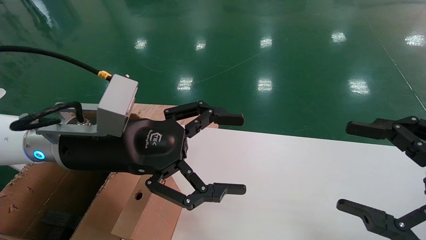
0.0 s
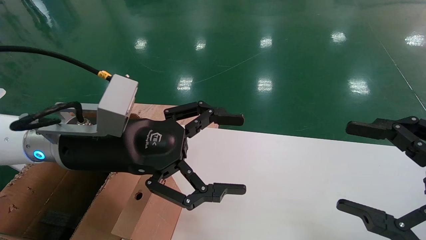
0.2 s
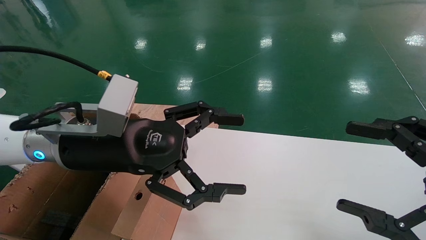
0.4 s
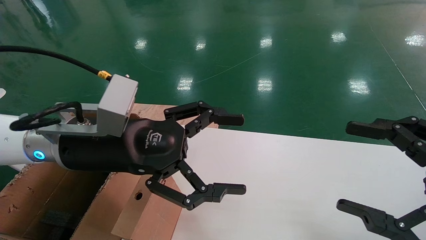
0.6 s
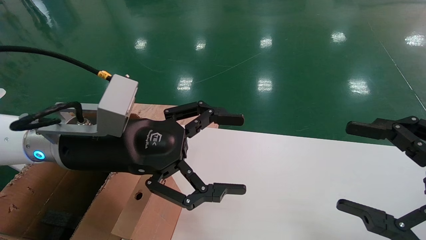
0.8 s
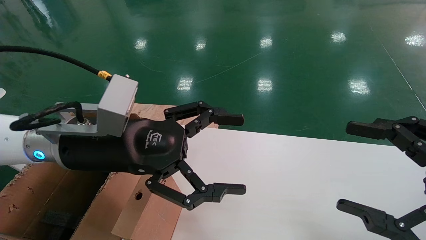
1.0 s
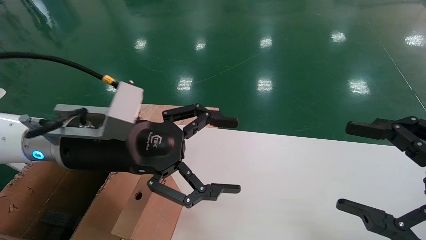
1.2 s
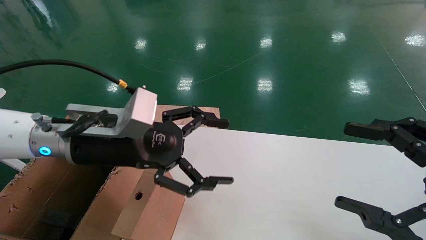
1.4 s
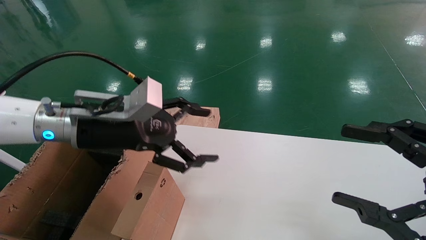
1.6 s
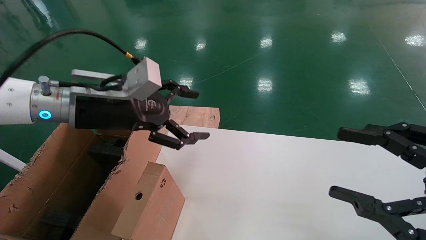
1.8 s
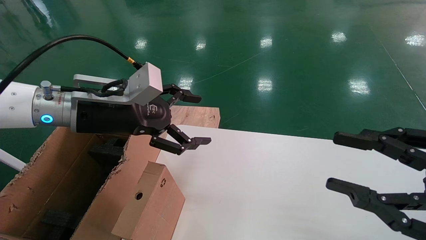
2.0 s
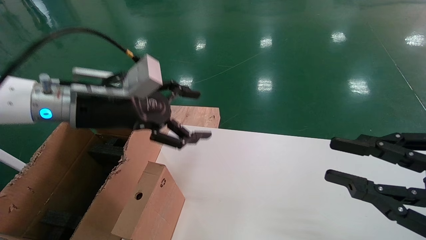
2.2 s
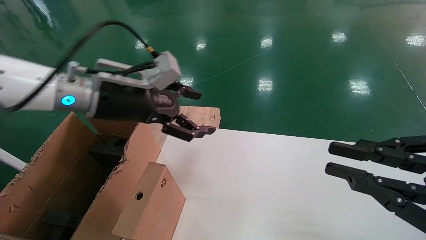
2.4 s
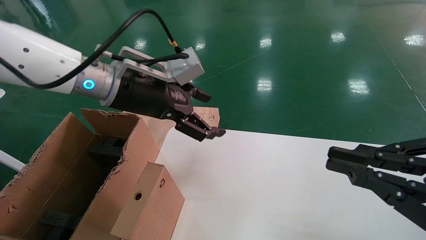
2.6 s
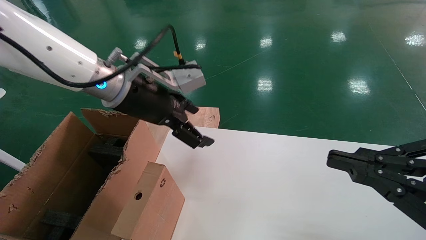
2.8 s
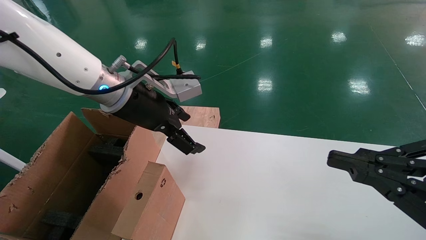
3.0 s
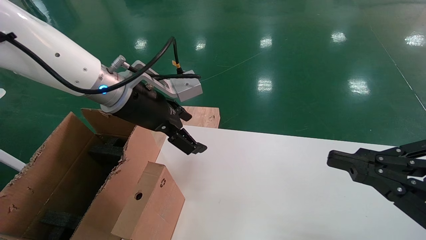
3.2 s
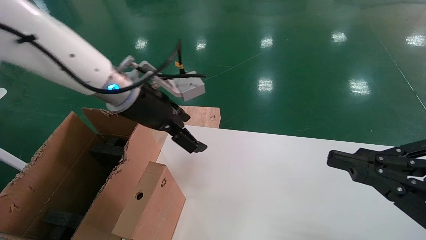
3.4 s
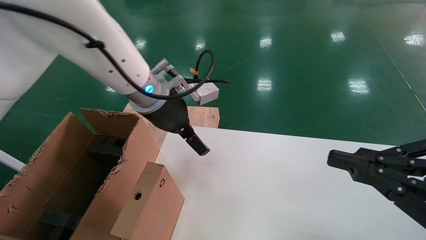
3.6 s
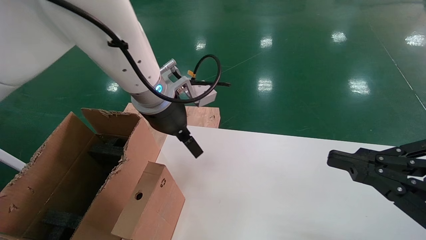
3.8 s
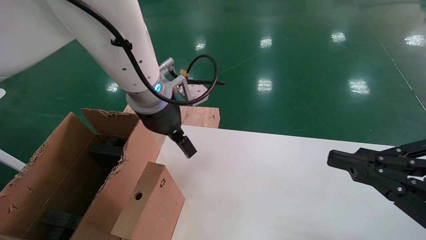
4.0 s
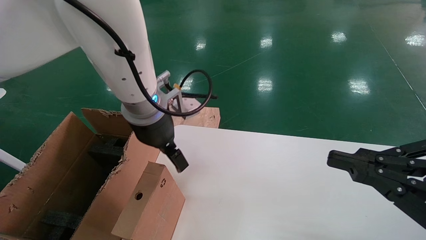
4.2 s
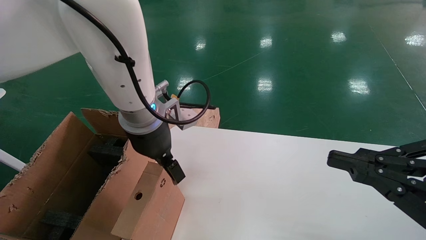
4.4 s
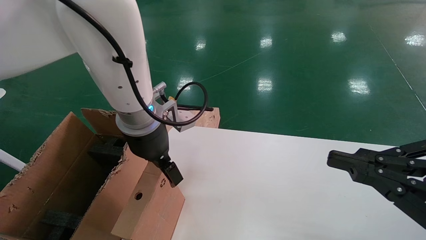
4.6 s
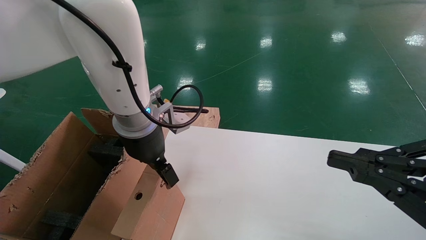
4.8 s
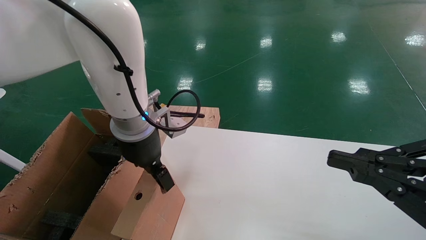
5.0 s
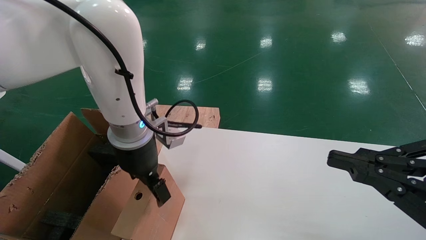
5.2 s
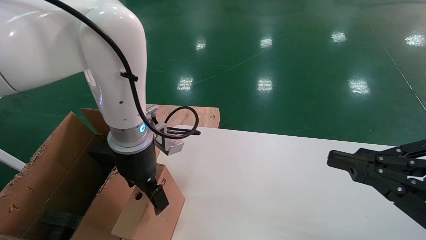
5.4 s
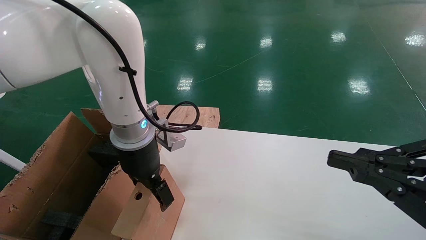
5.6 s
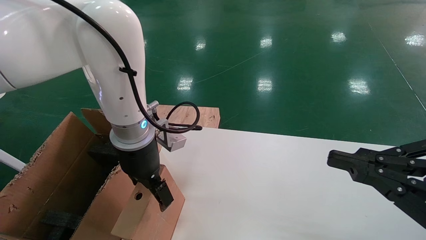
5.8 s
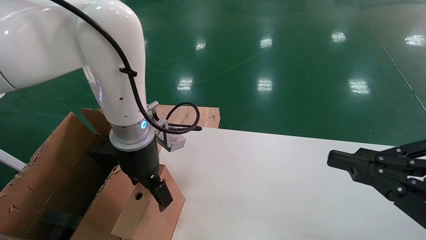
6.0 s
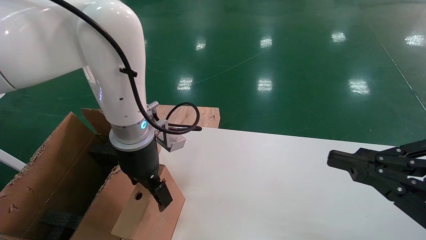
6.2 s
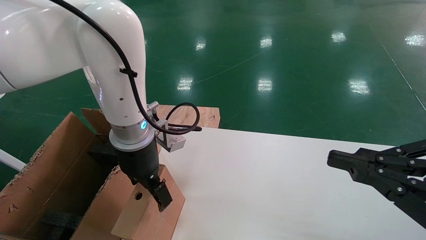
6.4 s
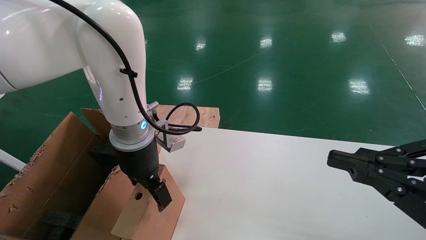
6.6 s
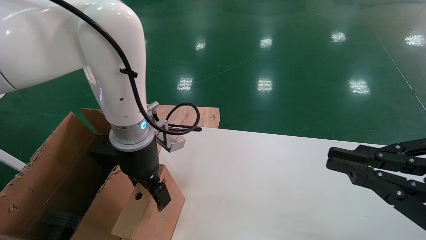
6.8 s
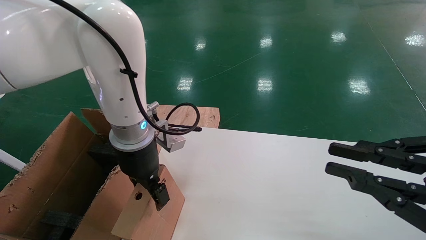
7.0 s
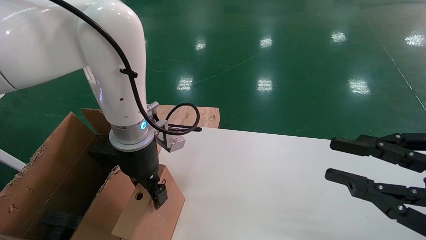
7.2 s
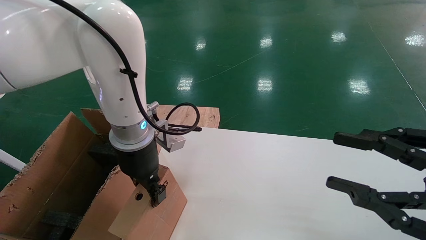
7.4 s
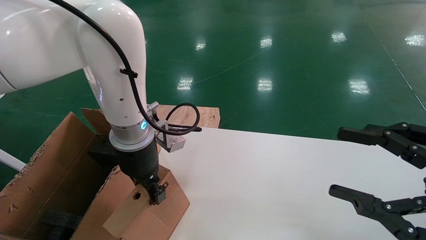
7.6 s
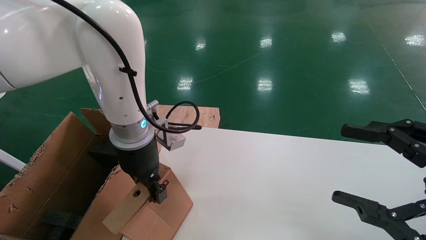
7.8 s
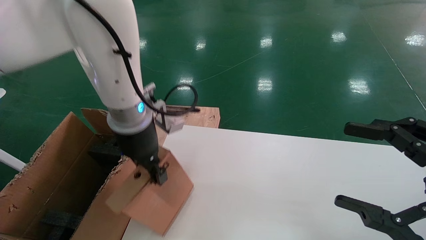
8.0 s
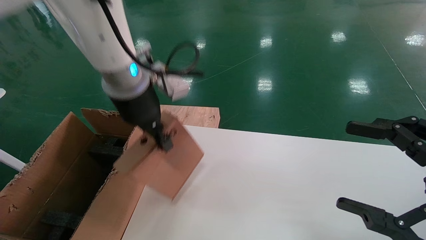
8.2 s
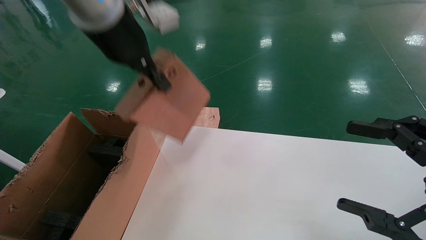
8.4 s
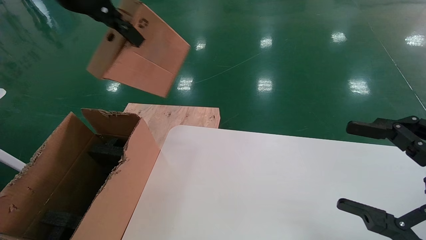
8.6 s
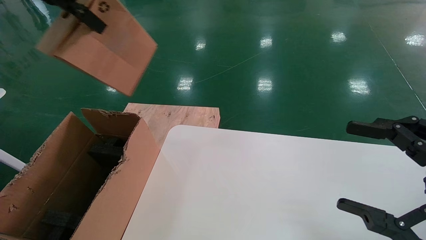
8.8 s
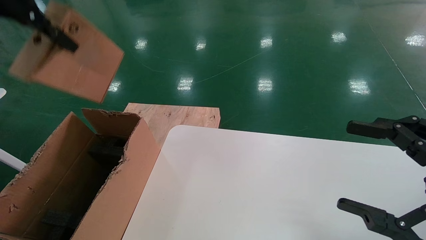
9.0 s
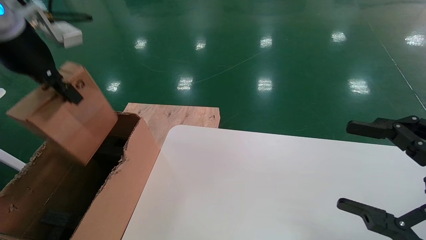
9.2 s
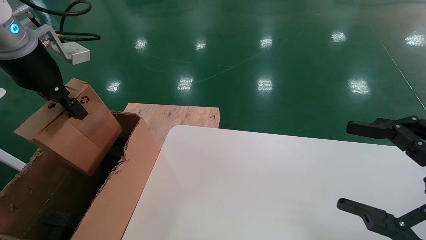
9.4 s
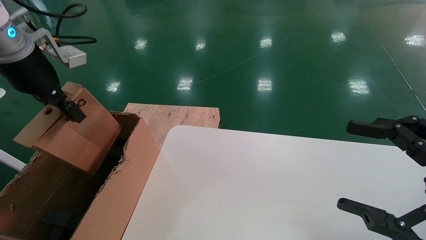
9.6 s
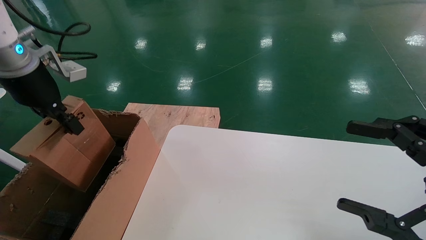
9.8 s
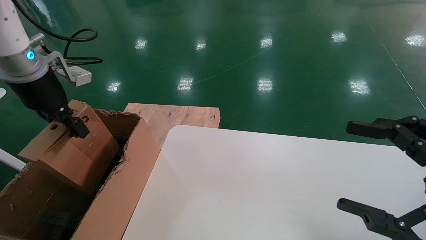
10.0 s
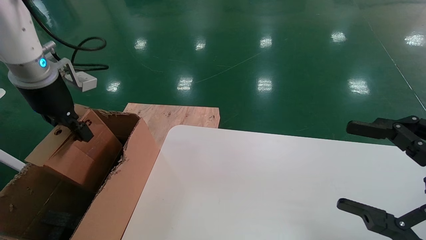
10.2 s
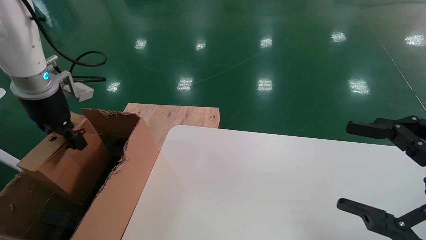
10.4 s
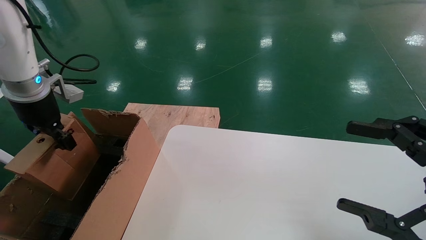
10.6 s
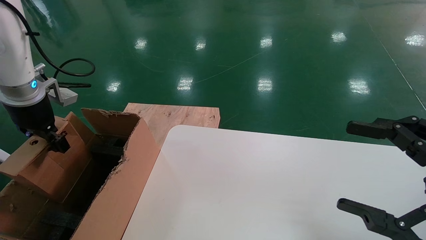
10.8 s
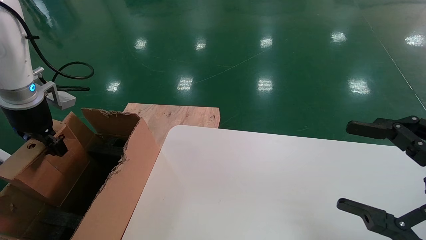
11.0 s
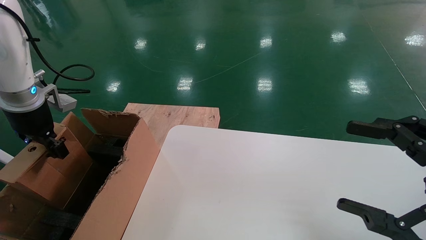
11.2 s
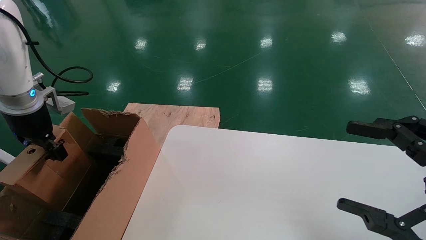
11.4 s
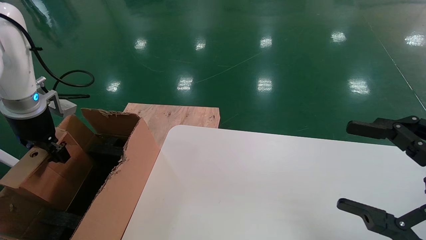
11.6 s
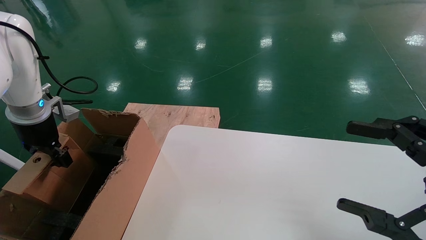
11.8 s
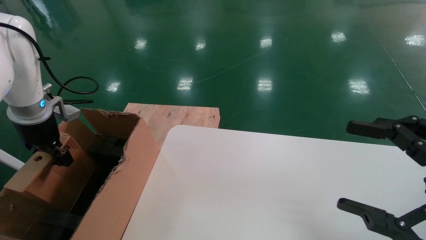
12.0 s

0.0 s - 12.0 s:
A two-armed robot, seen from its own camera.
Task of the whole recording: place the small box on the table into the large box on the left.
Step, 1.4 s - 7.8 s: Pick up the mouse and the power cord paper box.
0.0 s - 1.6 s: The left gripper moves some 5 cm.
1.6 s - 3.0 s: The right gripper closes its fingers. Meanwhile the left gripper is displaced forward by approximately 5 cm.
3.0 s - 4.4 s: The left gripper moves about 5 cm.
4.4 s - 6.0 s: The grippers make only small movements.
6.0 s - 7.6 s: The left gripper closes up, while the right gripper opens.
7.6 s - 9.0 s: The right gripper opens up. Meanwhile the left gripper shifts approximately 30 cm upward and to the left.
9.0 s - 10.4 s: The left gripper shifts some 15 cm downward and to the left.
10.4 s - 12.0 s: The left gripper heads downward, covering roughly 5 cm.

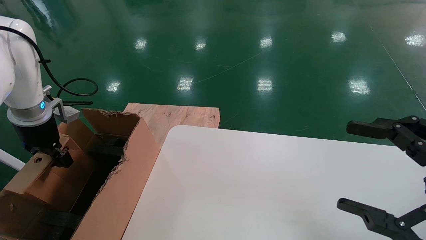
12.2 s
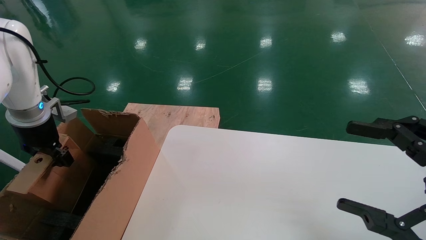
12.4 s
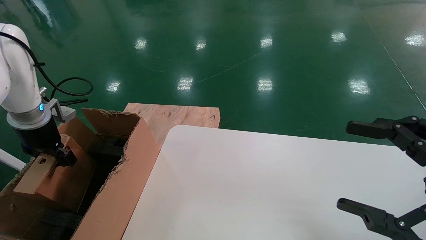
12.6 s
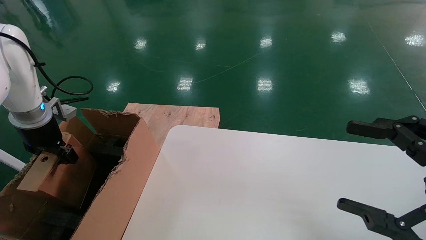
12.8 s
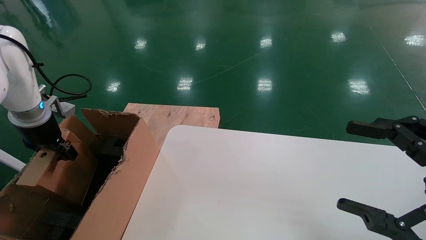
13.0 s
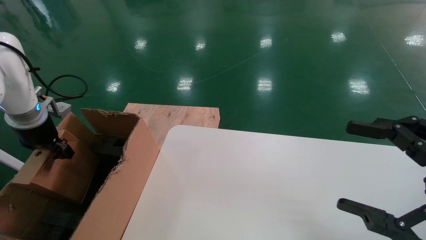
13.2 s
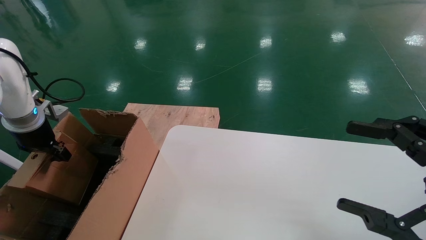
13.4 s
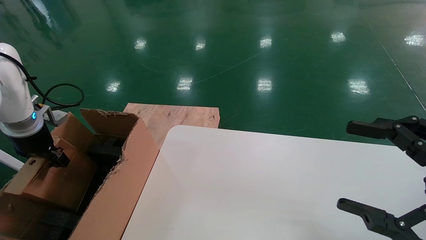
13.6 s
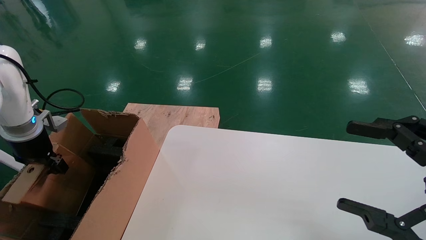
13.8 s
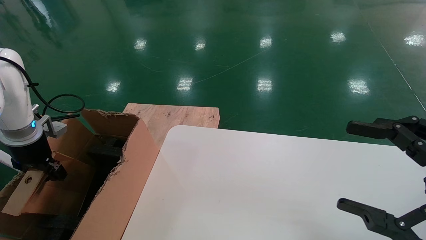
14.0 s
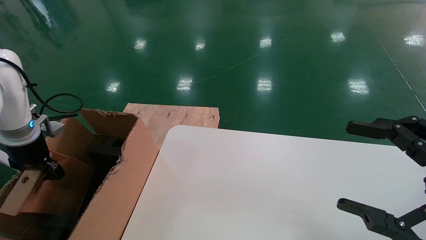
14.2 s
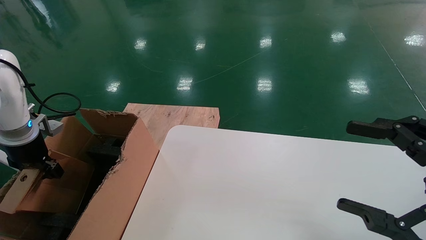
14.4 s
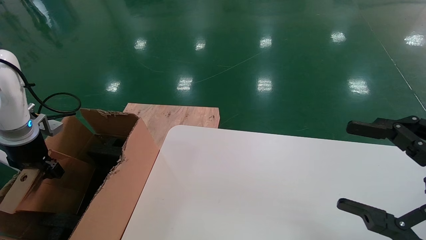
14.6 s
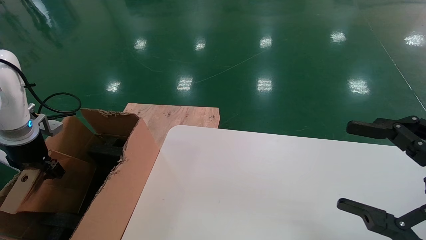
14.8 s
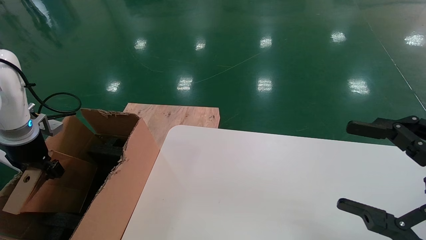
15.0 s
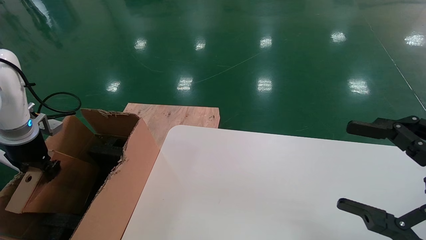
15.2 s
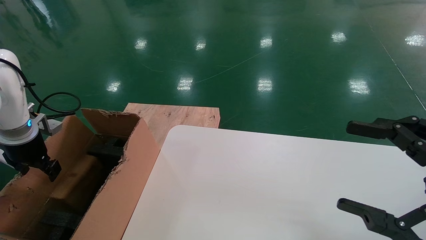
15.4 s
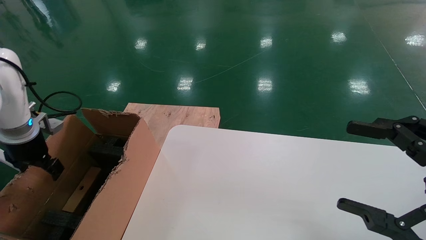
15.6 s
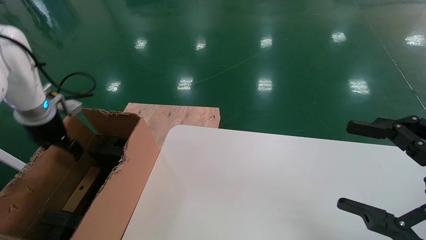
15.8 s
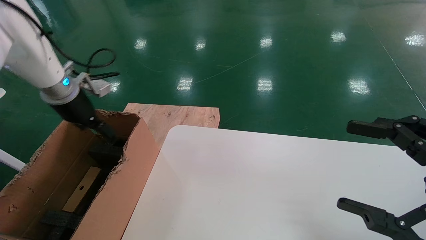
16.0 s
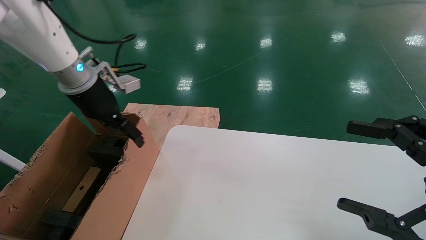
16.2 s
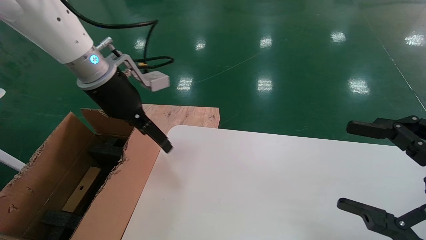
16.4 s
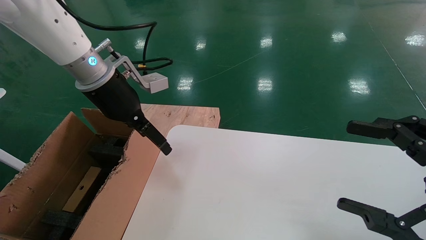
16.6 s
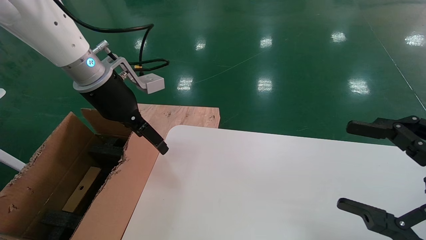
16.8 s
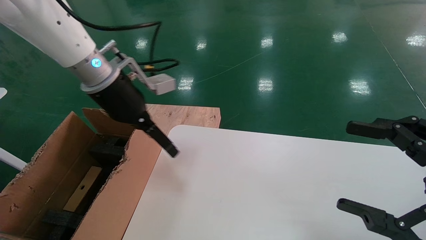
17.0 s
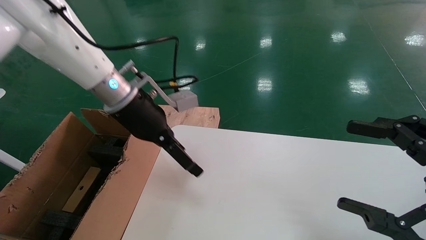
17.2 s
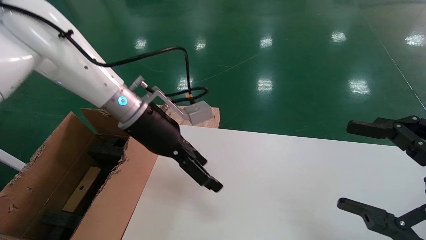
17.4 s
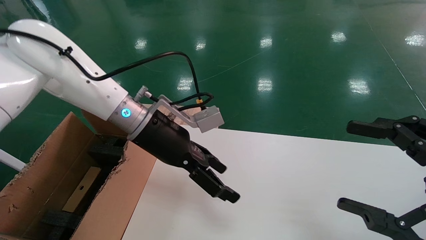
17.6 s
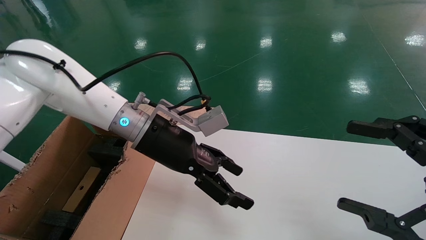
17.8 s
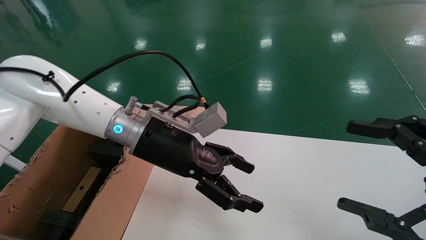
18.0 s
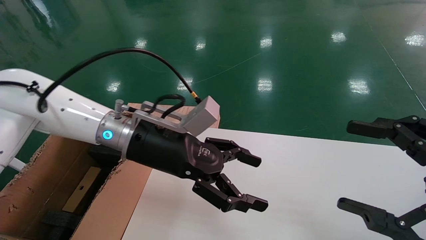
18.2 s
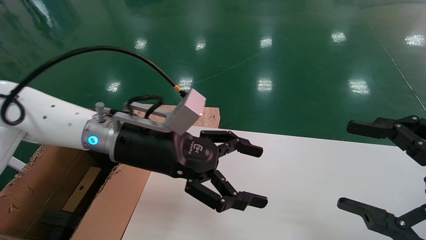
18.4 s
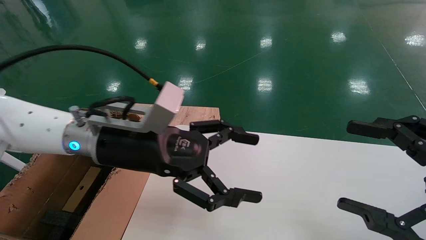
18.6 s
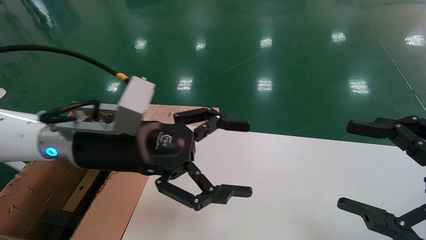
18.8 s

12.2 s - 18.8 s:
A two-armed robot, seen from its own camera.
Task of the whole recording: place the small box on the table into the large box on the left.
Step, 12.2 s - 15.6 s: Place the mouse and the power cord paper box into the container.
12.2 s - 13.8 s: The left gripper moves roughly 5 cm.
13.8 s - 15.4 s: The left gripper opens.
15.4 s - 17.2 s: The left gripper travels to the right by roughly 30 cm, and opens.
17.2 s - 18.8 s: The left gripper heads backward, covering about 10 cm.
